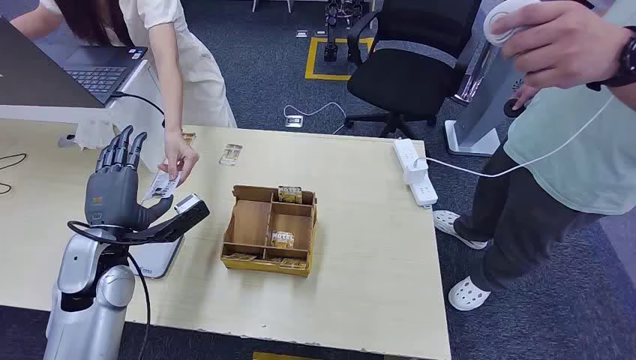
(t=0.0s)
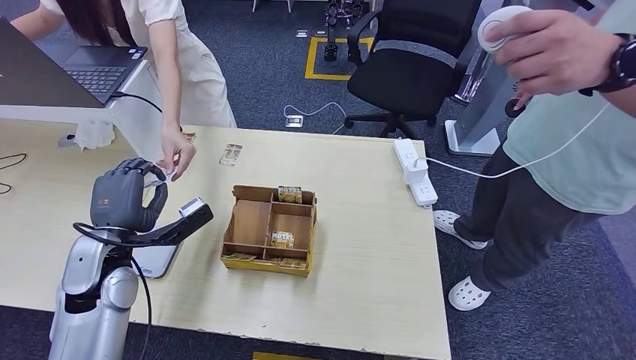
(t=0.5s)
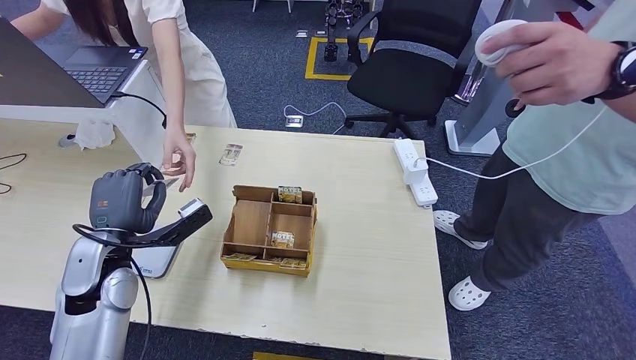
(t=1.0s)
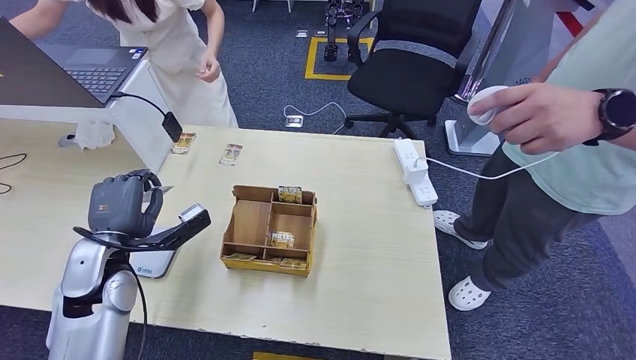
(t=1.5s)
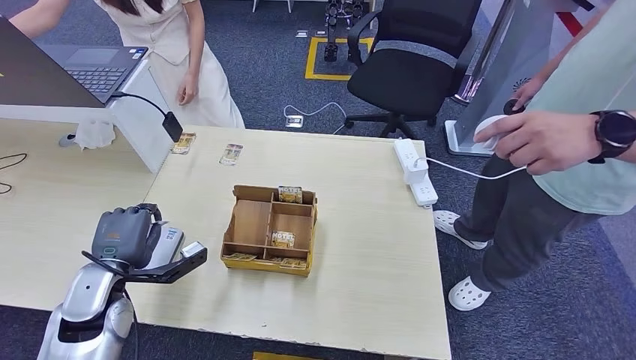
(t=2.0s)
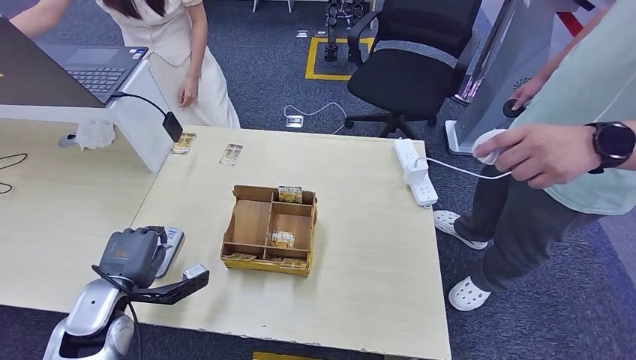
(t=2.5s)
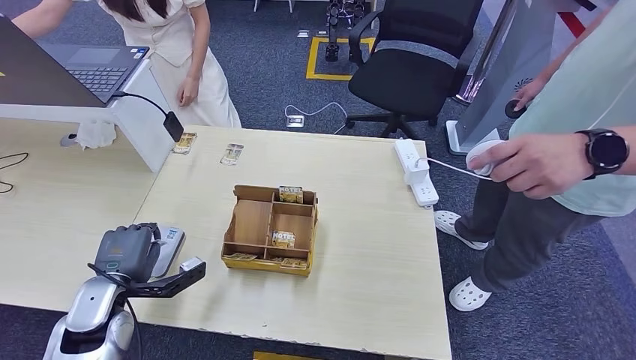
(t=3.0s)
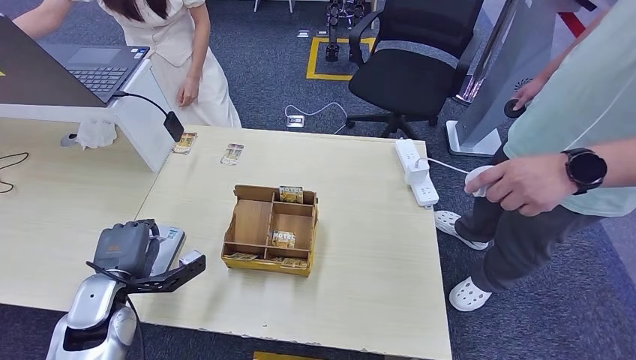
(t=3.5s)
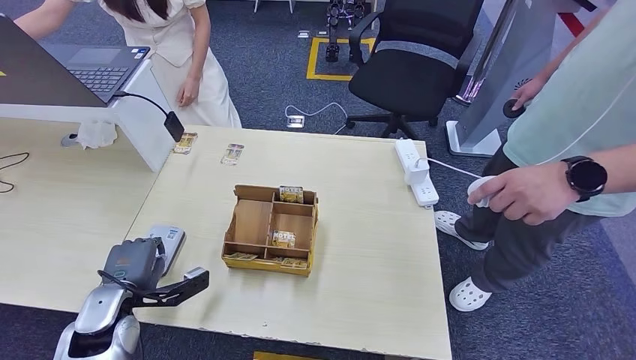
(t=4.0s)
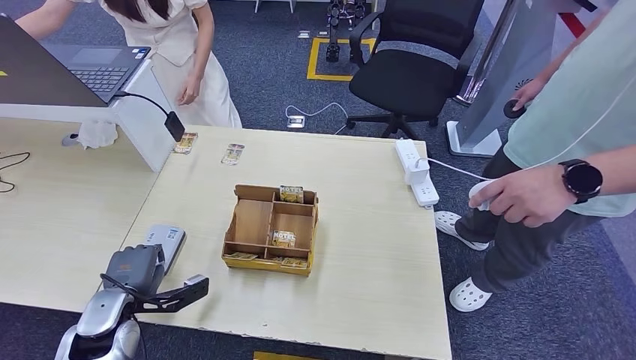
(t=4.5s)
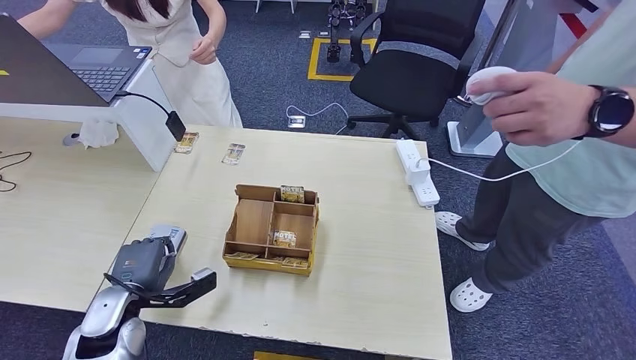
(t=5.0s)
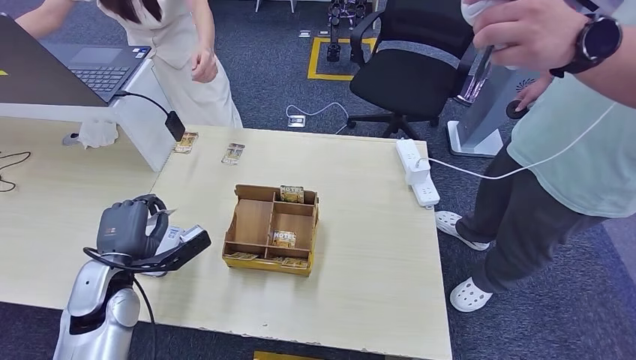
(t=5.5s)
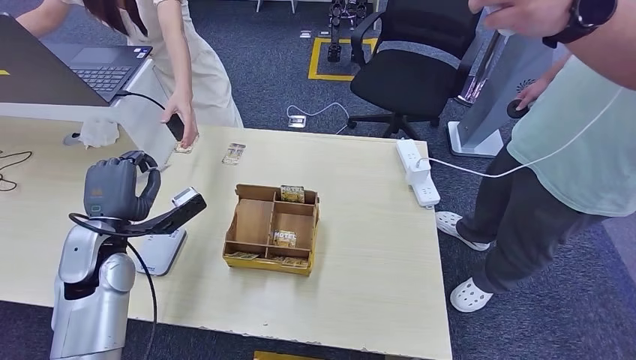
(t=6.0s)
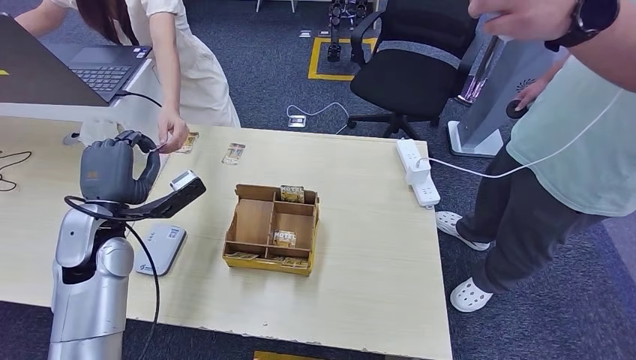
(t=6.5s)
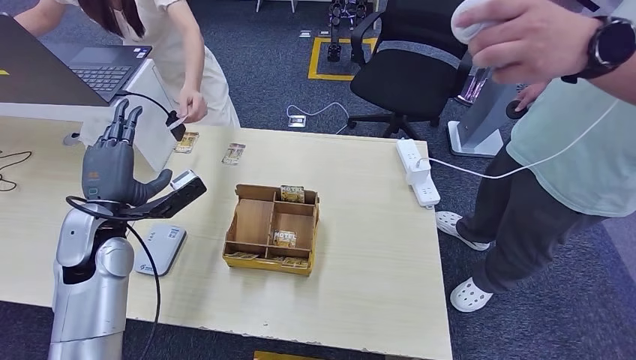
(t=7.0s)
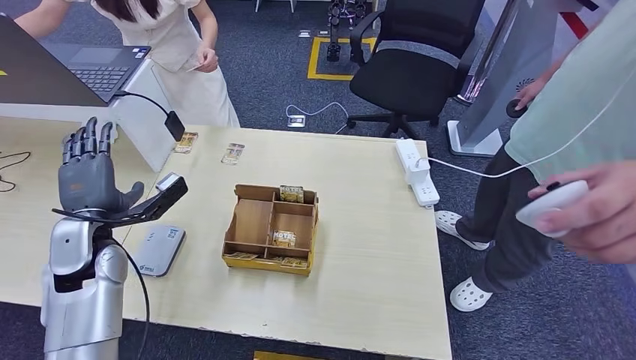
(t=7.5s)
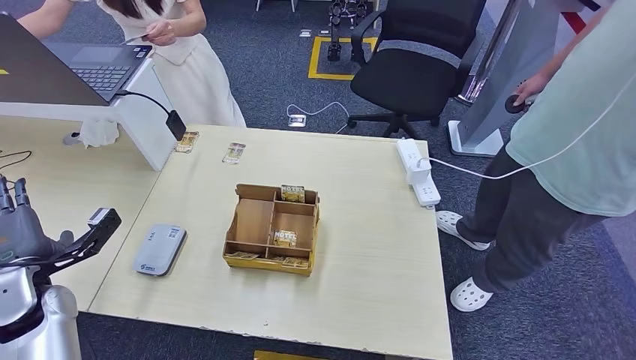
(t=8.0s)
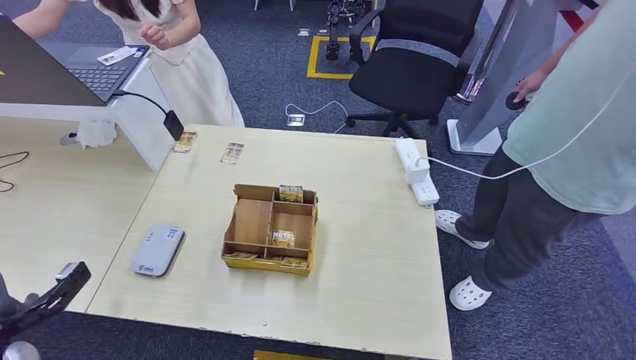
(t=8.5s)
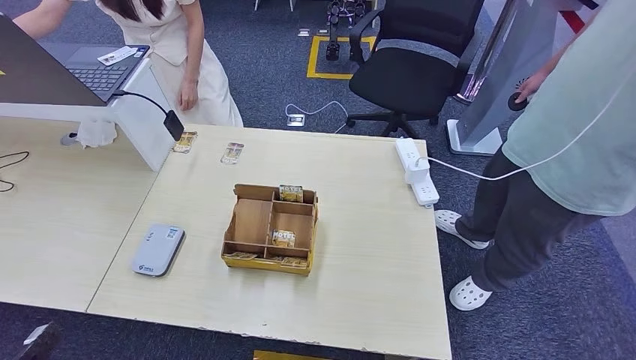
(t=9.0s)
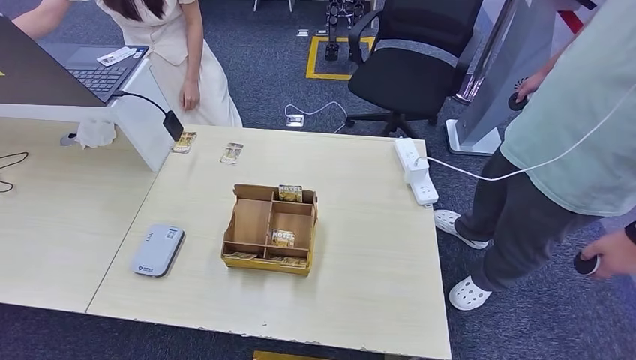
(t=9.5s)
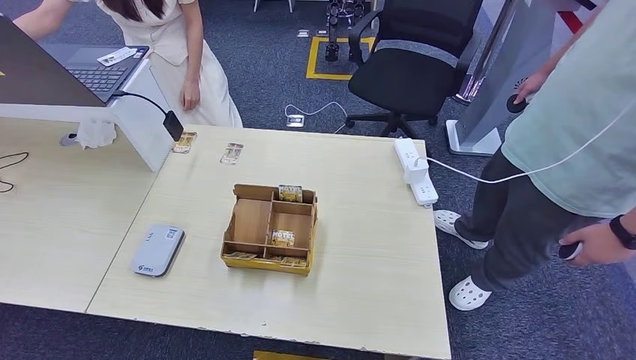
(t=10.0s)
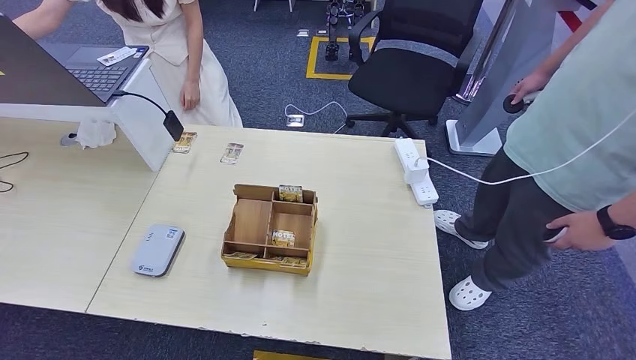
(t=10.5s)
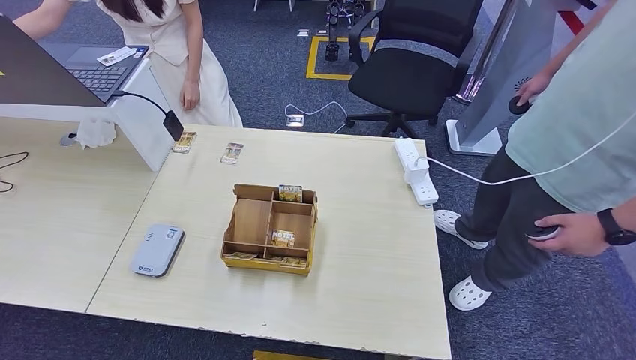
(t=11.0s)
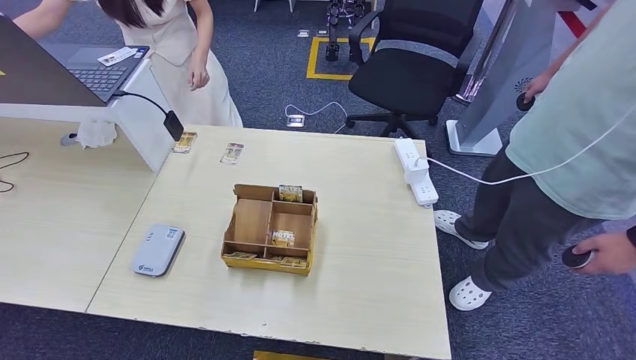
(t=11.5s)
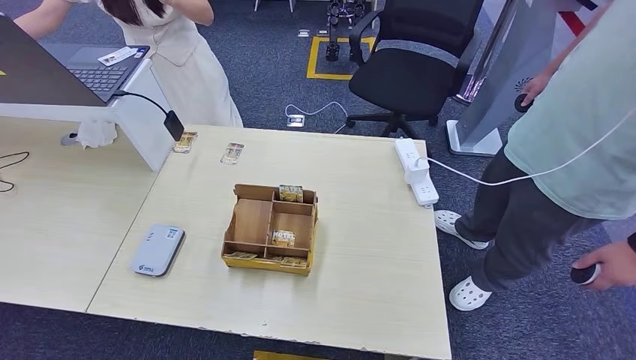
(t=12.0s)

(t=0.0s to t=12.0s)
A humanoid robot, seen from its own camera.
Step, t=0.0s - t=1.0s: Take the ID card from the person's hand.
Step, t=1.5s - t=4.5s: Place the ID card on the card reader.
Step, t=5.0s - t=7.0s: Hand the ID card to the person.
t=2.0s - t=4.0s: The left hand shifts by about 5 cm.
t=6.0s - t=8.0s: The left hand goes approximately 10 cm to the left and backward.
t=8.0s - t=10.0s: The left hand moves downward, backward and to the right, roughly 30 cm.
t=10.0s - t=12.0s: The two hands go some 5 cm downward.

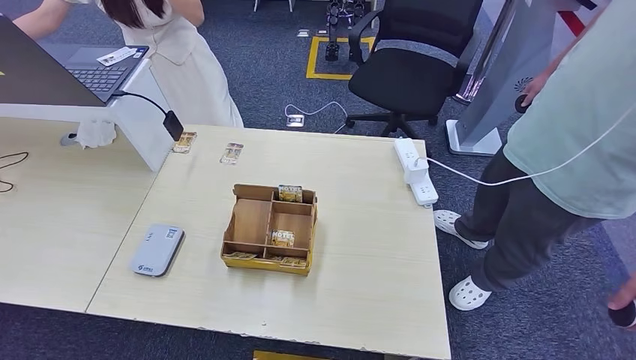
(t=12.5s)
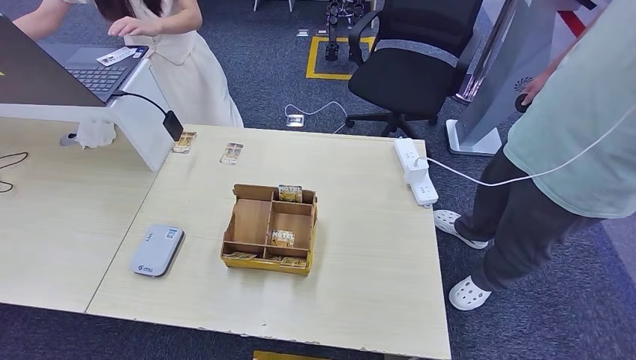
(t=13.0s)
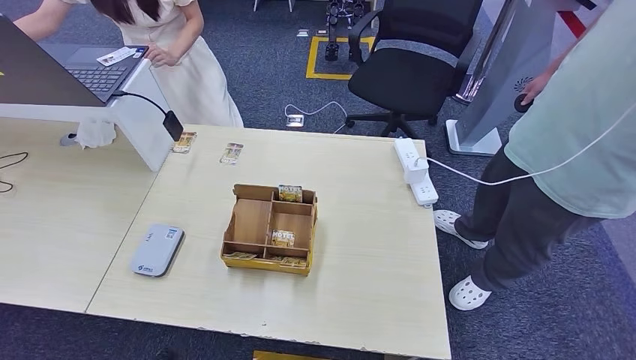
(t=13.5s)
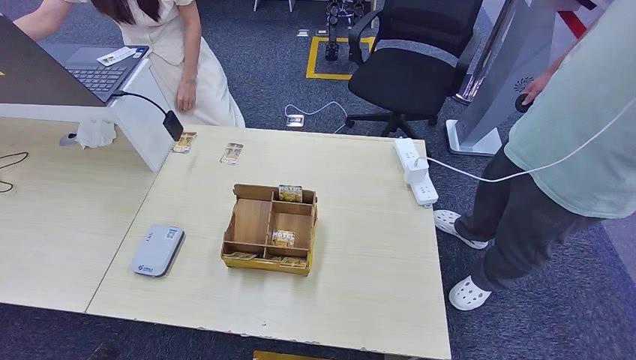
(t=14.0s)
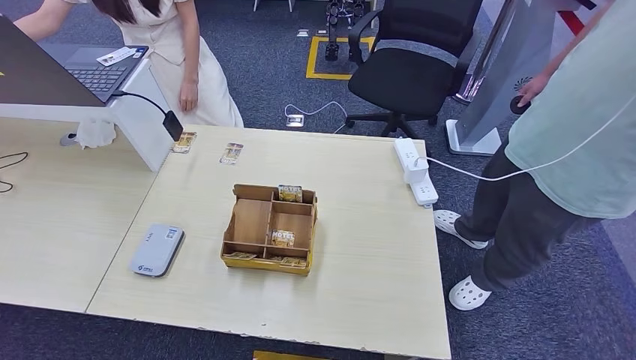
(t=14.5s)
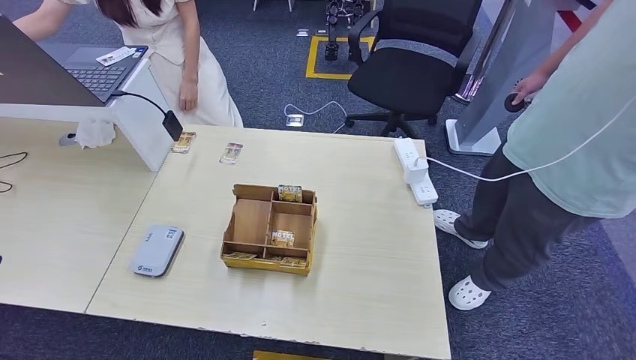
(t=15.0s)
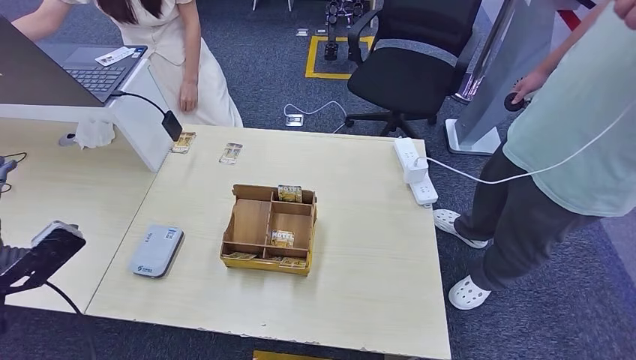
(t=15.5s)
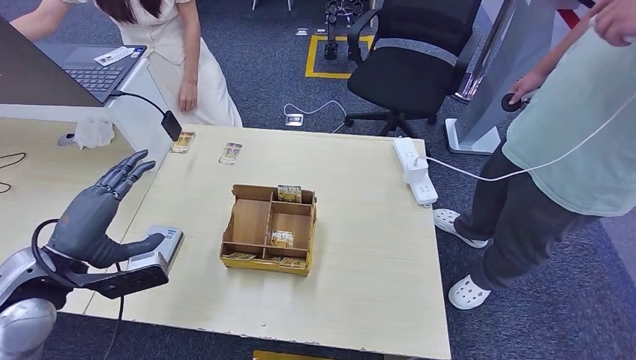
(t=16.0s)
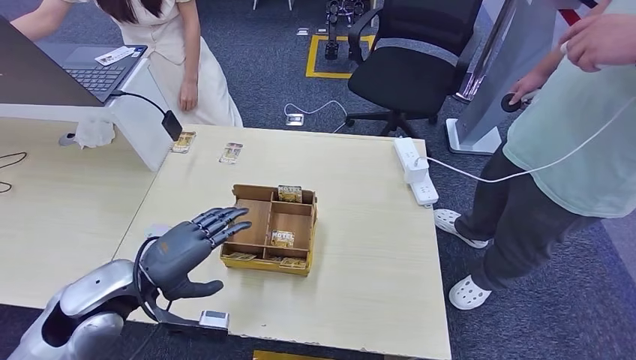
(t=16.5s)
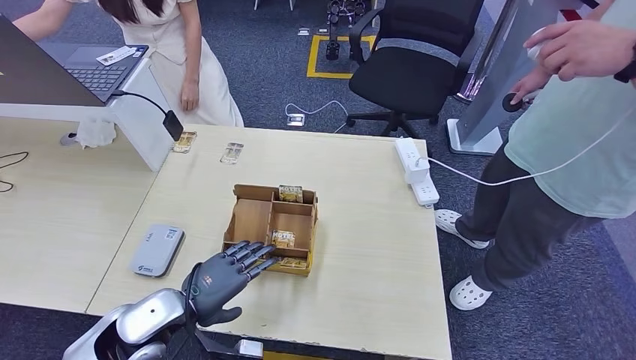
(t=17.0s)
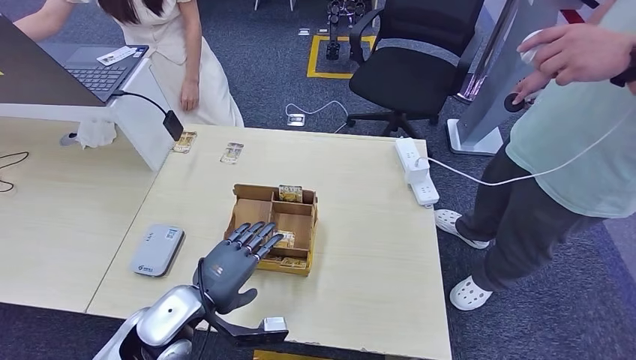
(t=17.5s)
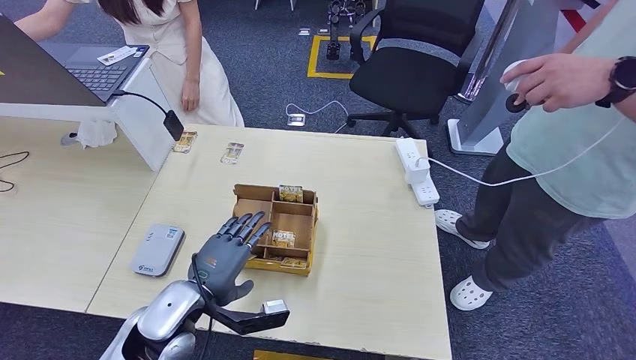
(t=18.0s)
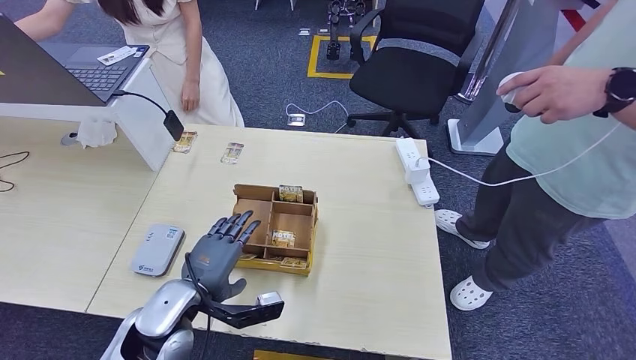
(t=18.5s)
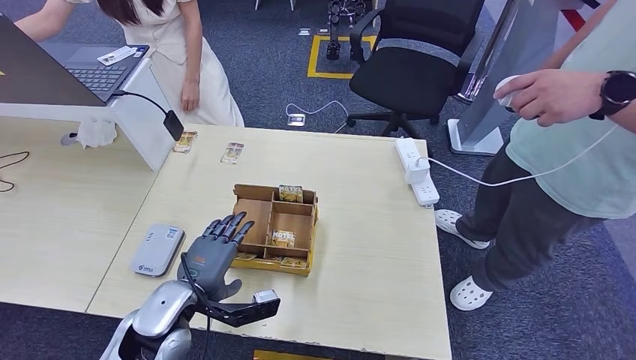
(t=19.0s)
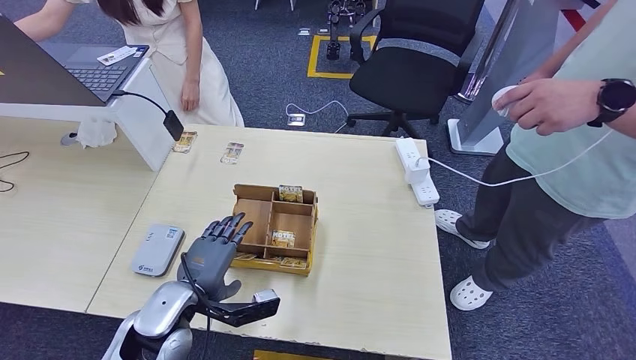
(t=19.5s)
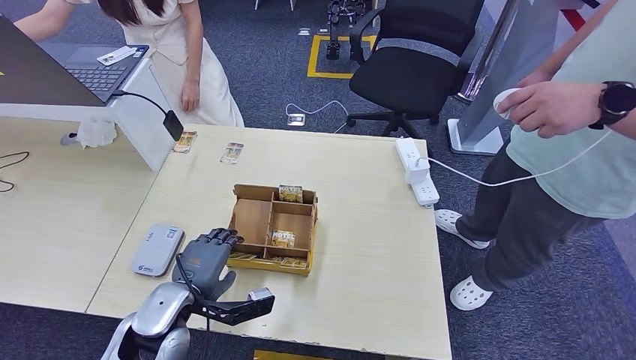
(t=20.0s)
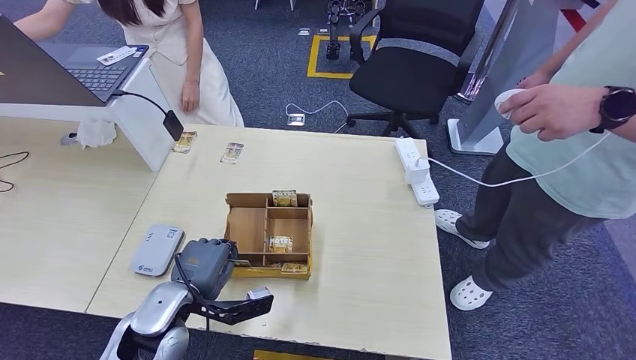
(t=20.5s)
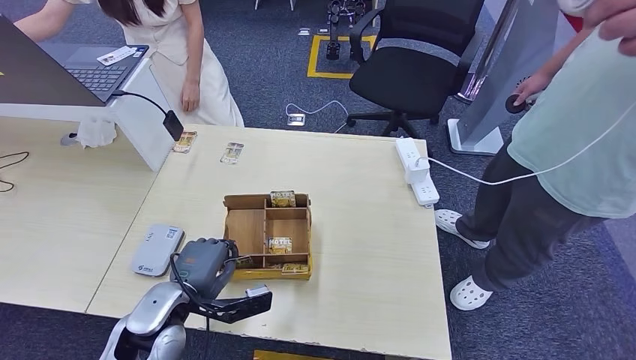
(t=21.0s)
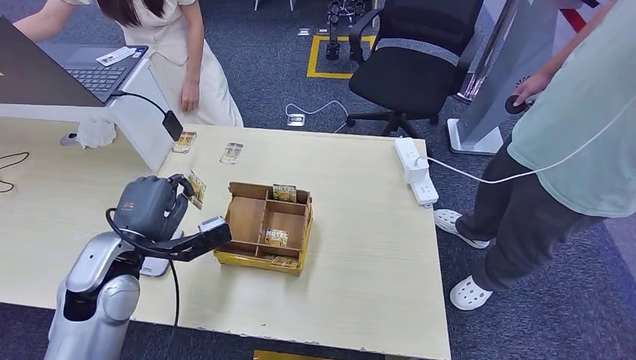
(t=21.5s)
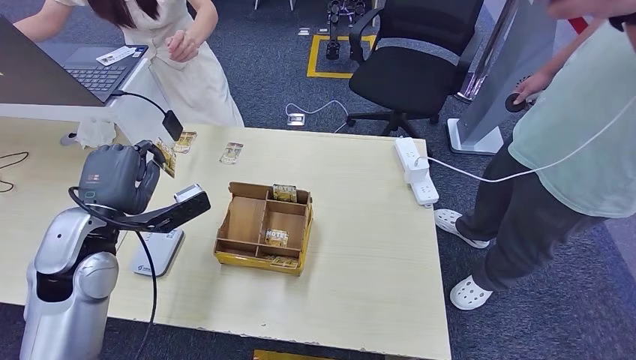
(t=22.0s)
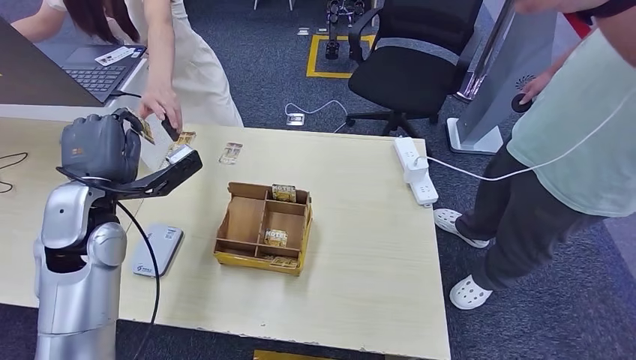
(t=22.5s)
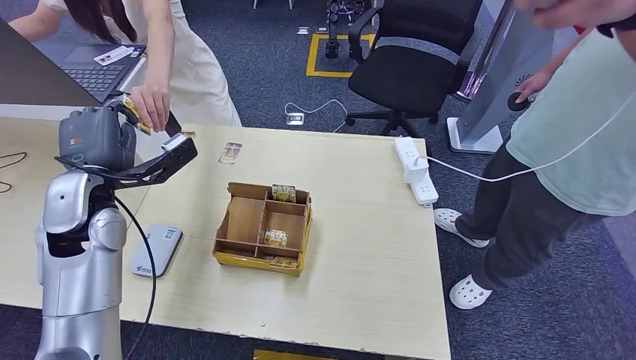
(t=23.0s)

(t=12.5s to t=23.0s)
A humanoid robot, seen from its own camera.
Step, t=12.5s - t=21.0s: Pick up the room key from the key card box.
t=12.5s - t=14.5s: The left hand travels upward and to the left by about 30 cm; the right hand travels upward by roughly 5 cm.
t=14.5s - t=16.5s: The left hand goes about 25 cm to the right and forward.
t=16.5s - t=19.0s: The left hand goes roughly 10 cm to the right and downward.
t=19.0s - t=21.0s: The hands stay close to where they were, moving slightly.
